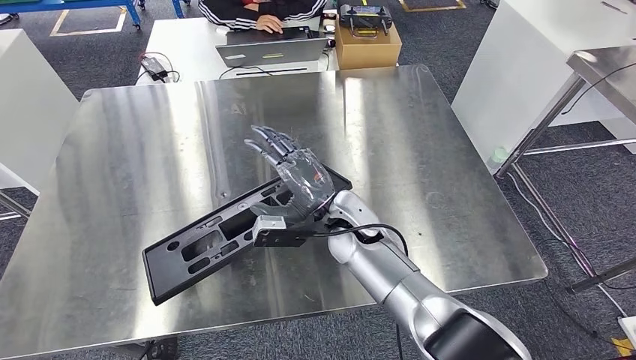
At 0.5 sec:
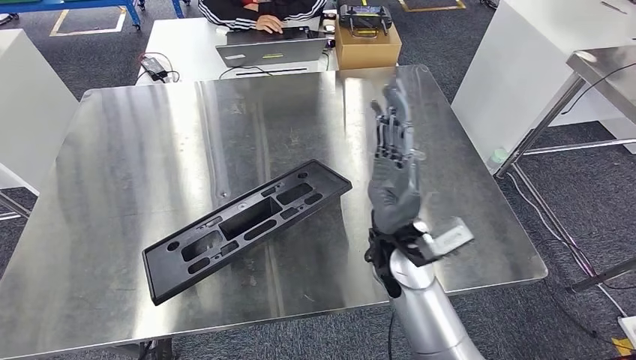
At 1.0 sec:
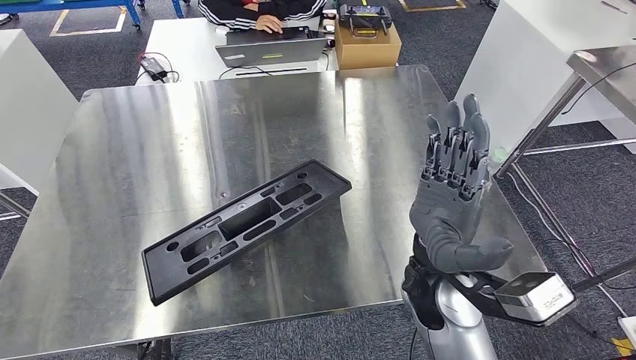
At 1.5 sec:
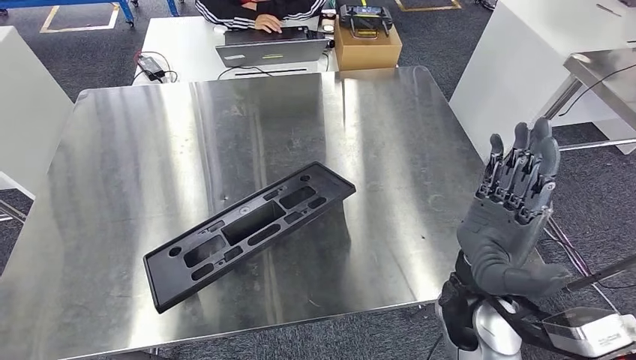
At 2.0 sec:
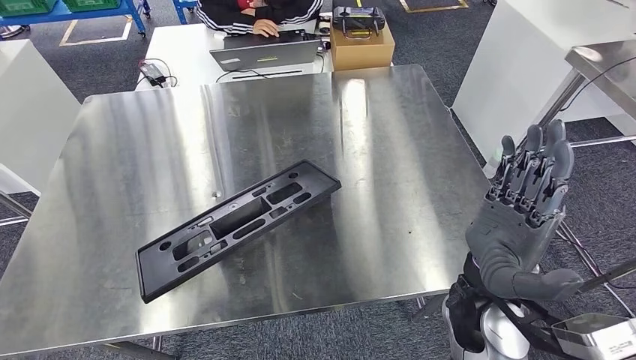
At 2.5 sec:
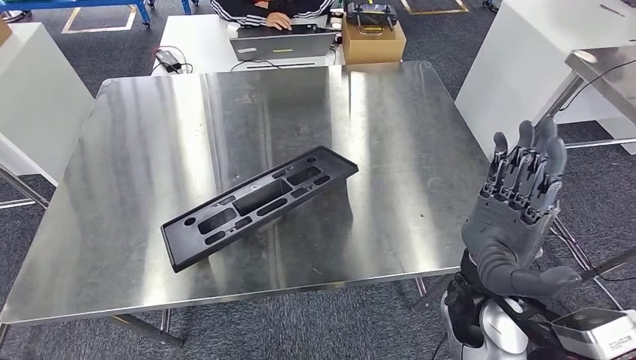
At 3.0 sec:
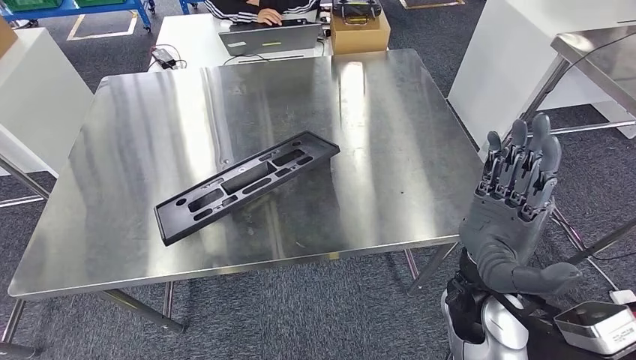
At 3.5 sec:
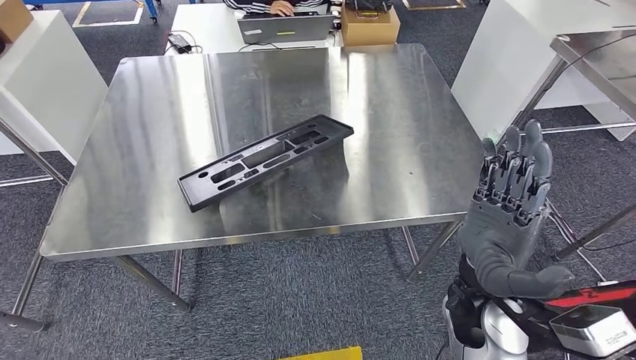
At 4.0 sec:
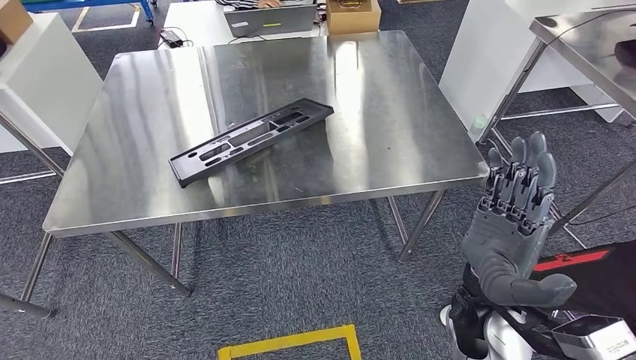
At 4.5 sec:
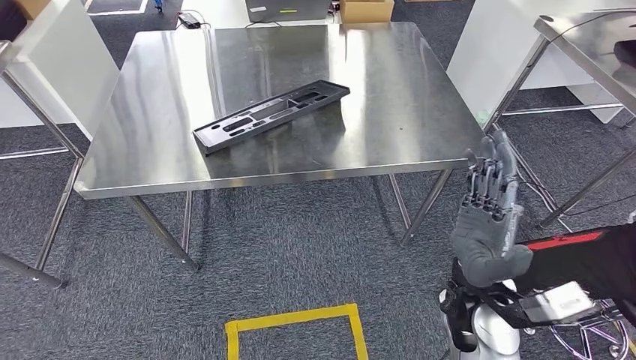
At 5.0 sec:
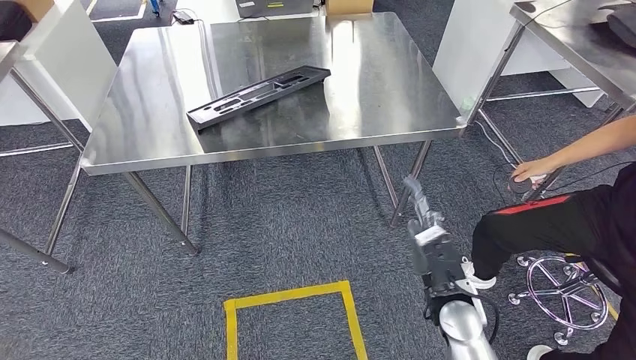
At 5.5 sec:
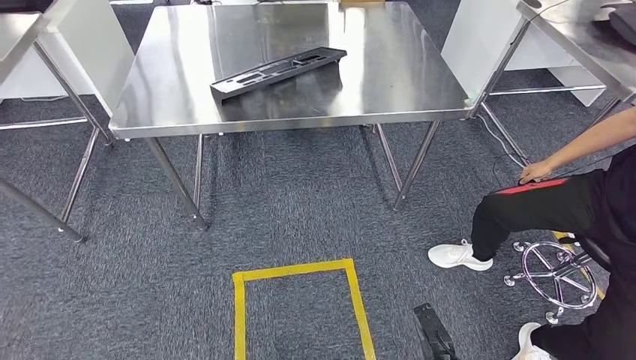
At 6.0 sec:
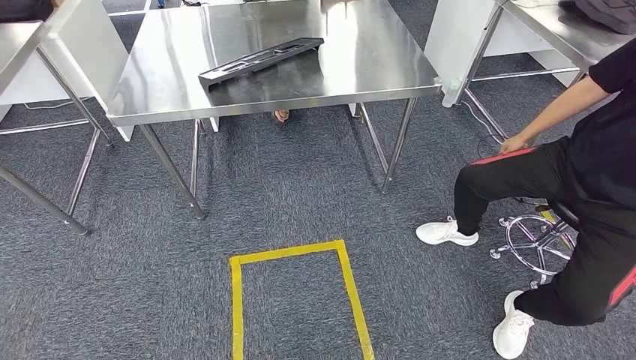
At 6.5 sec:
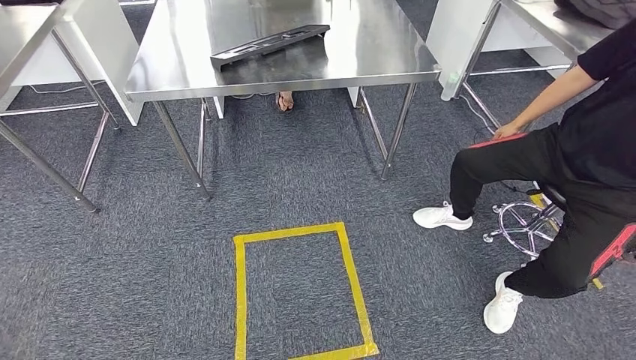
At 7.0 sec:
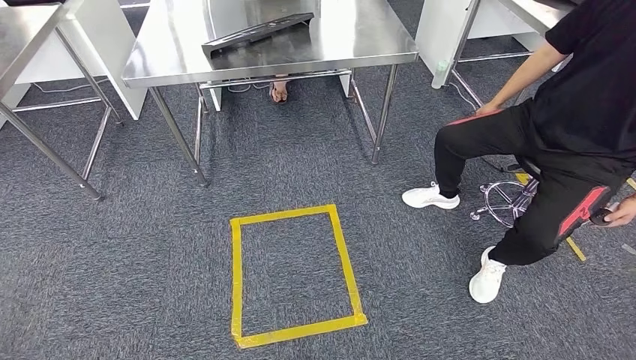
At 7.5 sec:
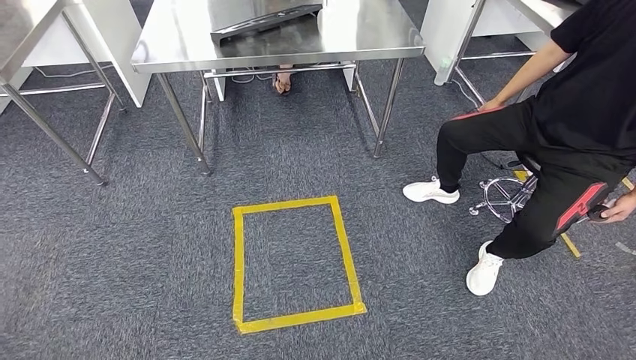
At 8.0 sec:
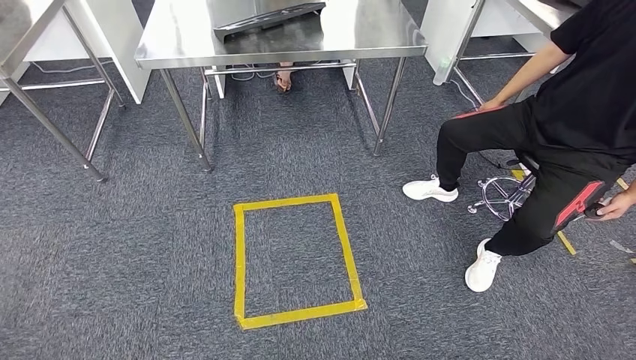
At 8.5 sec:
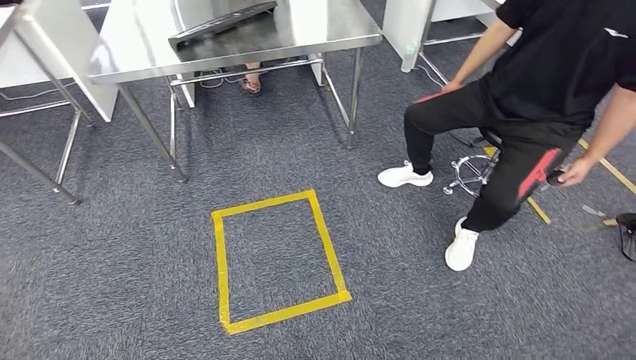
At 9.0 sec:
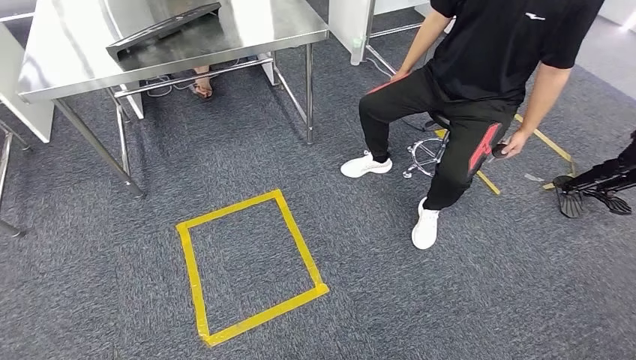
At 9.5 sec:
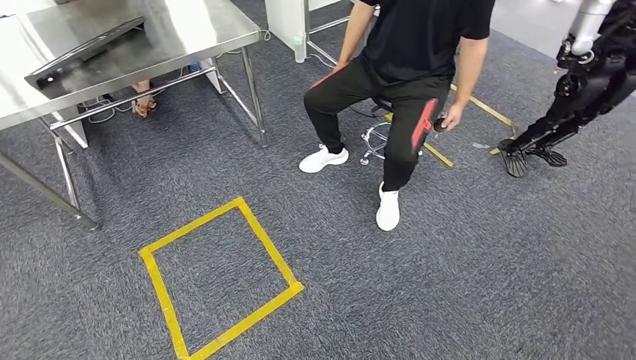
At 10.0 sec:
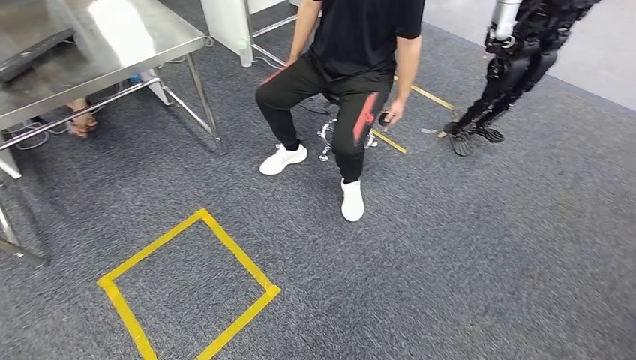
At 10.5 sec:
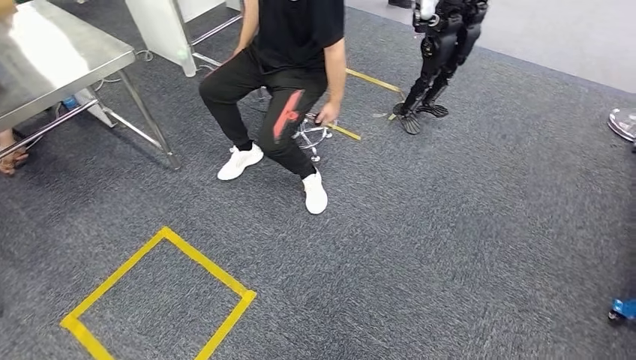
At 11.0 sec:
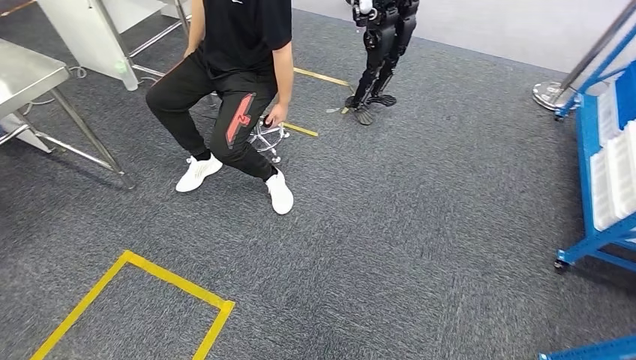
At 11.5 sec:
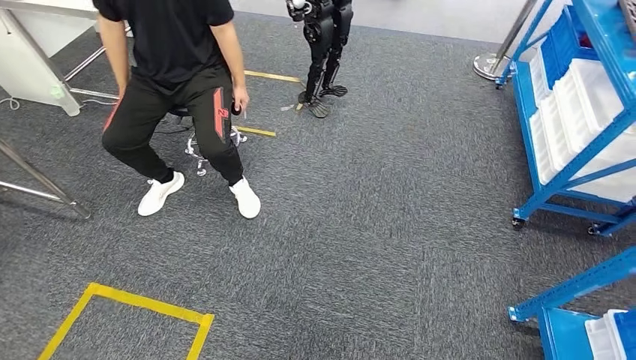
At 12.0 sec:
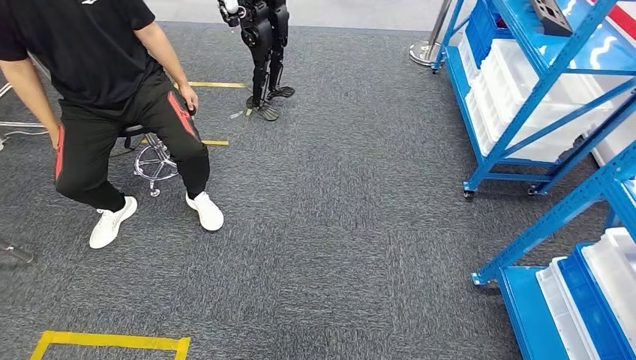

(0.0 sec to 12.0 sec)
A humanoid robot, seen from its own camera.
Step, 0.0 sec - 3.0 sec: Insert the large material into the corresponding slot on the workbench.

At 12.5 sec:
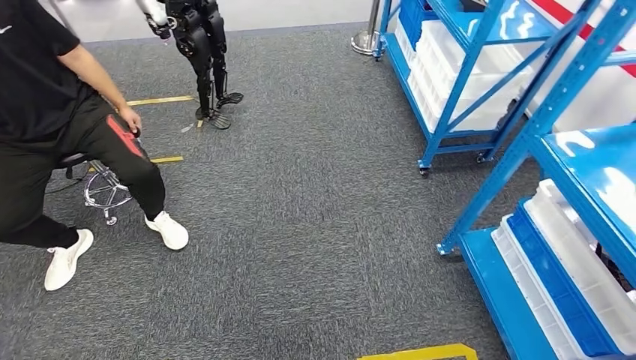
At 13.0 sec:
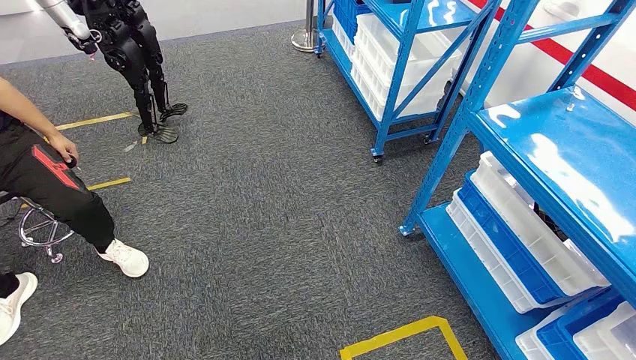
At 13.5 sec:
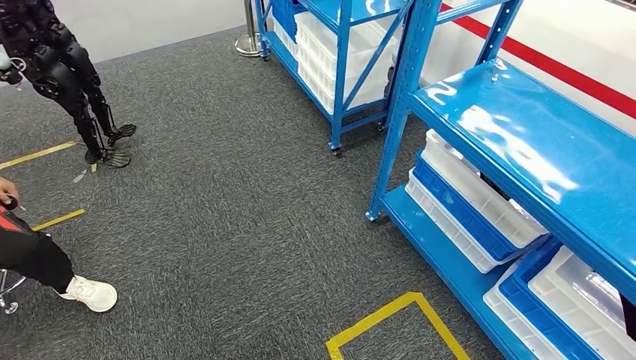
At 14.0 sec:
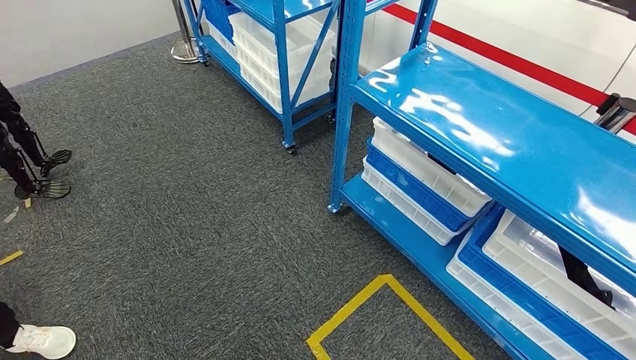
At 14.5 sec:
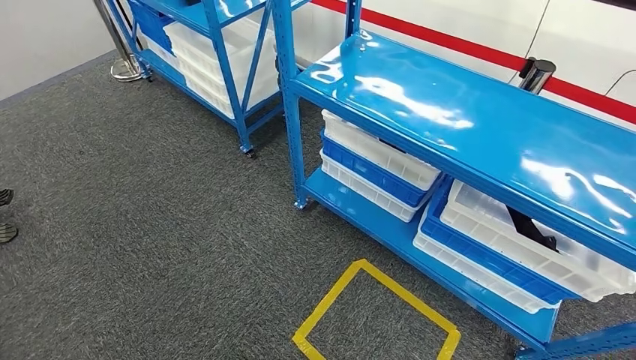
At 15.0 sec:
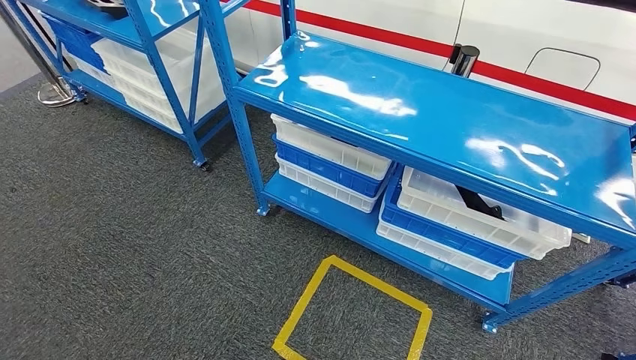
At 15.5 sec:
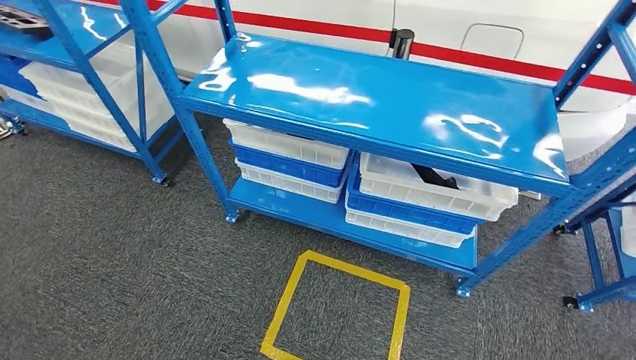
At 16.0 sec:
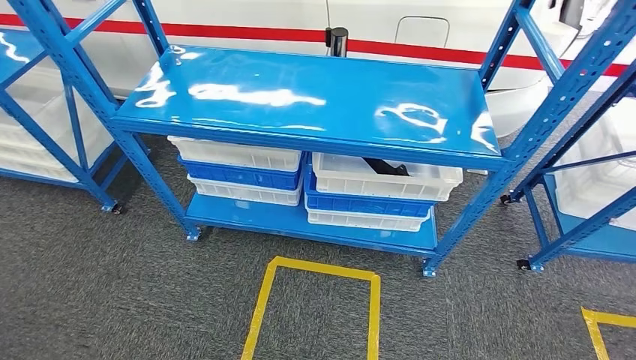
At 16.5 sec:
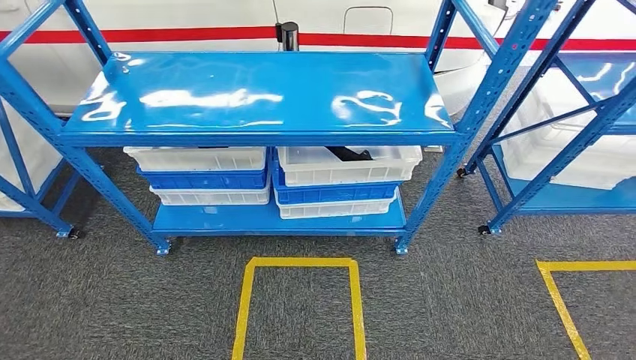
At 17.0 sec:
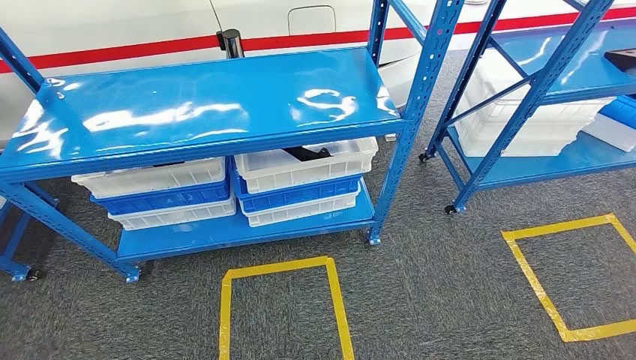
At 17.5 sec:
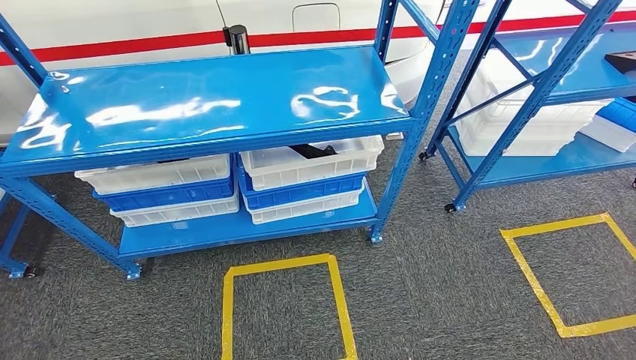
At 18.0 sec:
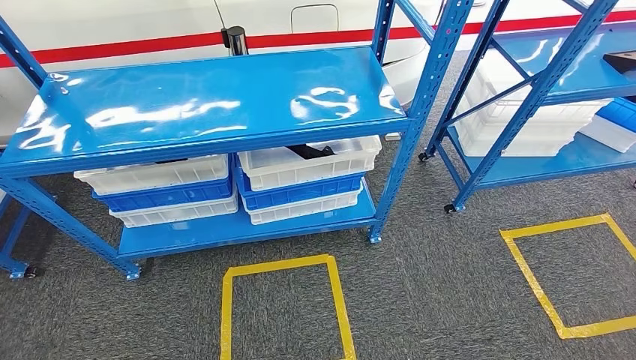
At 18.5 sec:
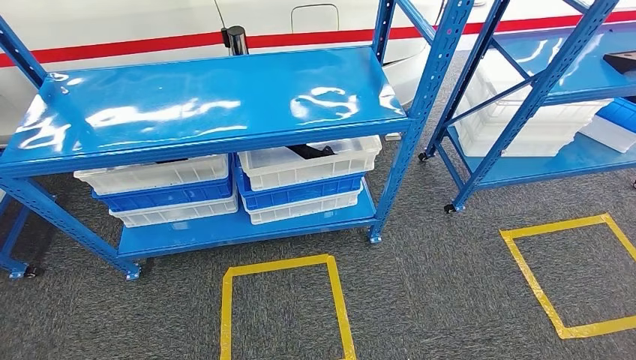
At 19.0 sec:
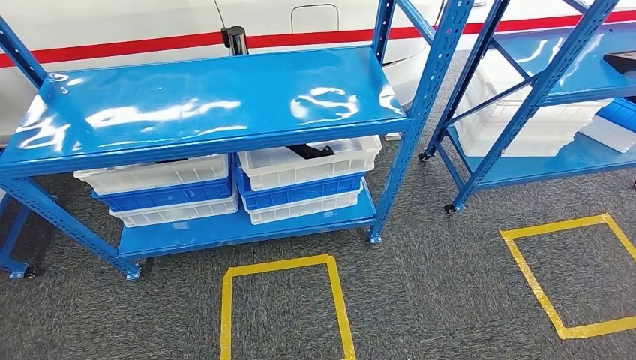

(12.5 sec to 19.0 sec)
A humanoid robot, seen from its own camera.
Step, 12.5 sec - 19.0 sec: Move to the initial position of the shelf.
17.0 sec - 19.0 sec: The left hand moves backward, about 5 cm. The right hand changes place by some 5 cm.
